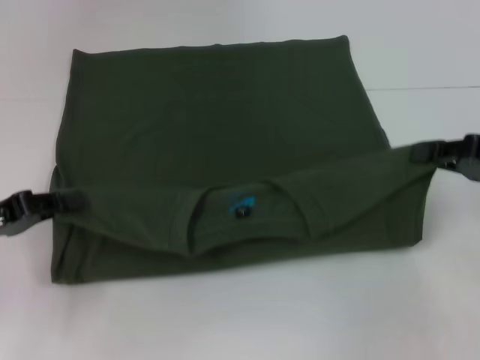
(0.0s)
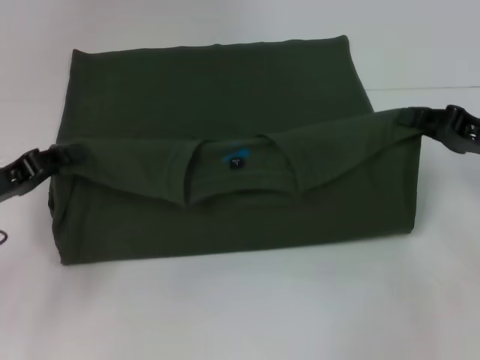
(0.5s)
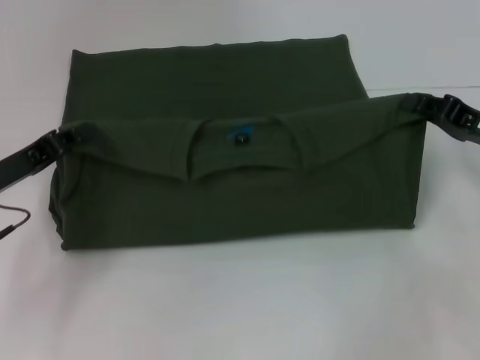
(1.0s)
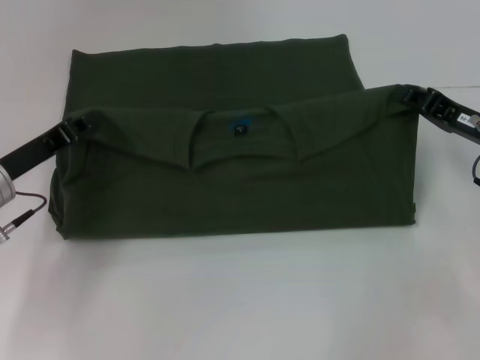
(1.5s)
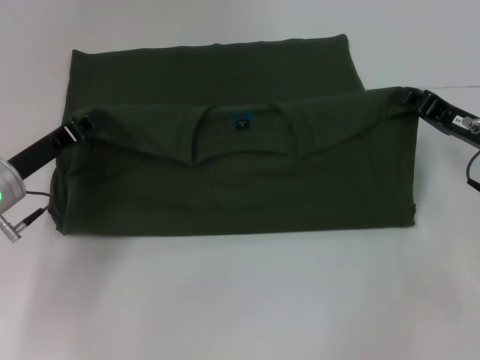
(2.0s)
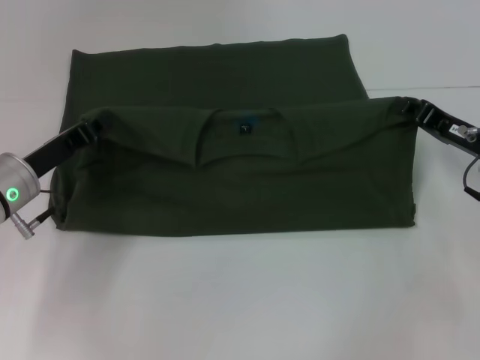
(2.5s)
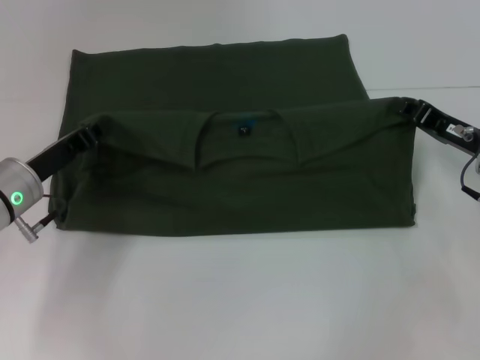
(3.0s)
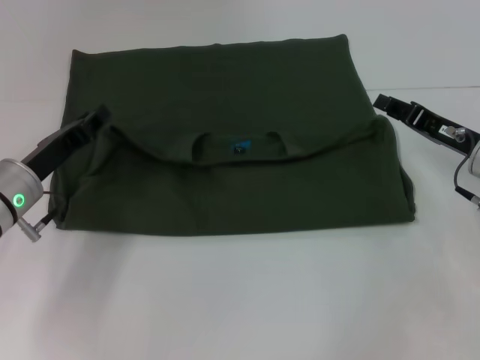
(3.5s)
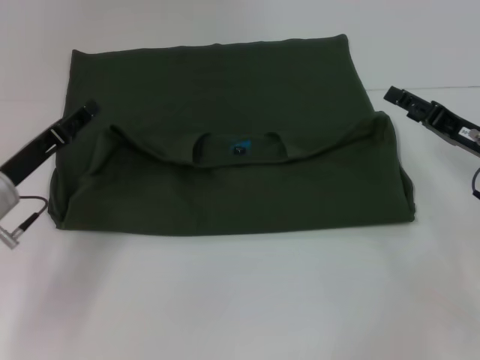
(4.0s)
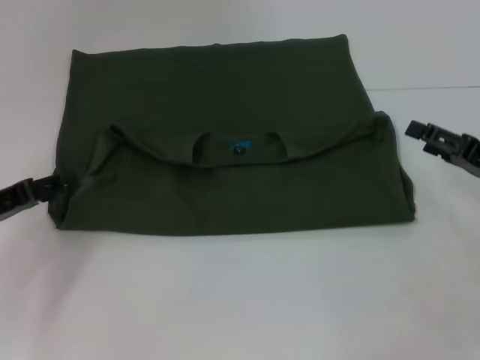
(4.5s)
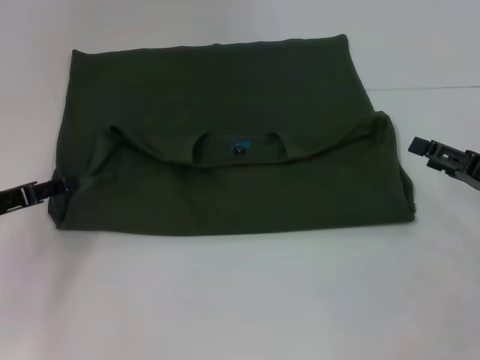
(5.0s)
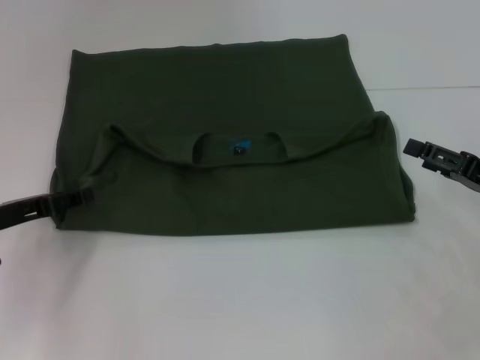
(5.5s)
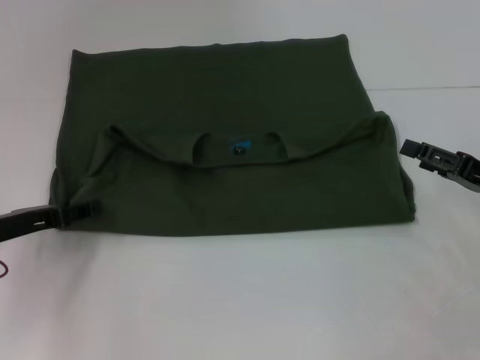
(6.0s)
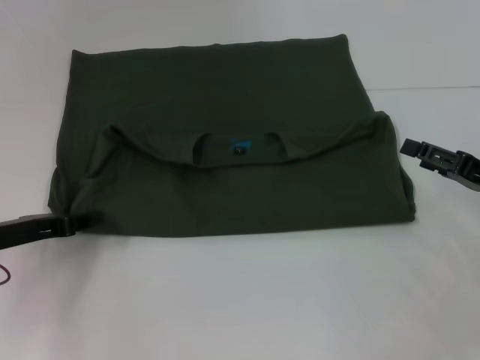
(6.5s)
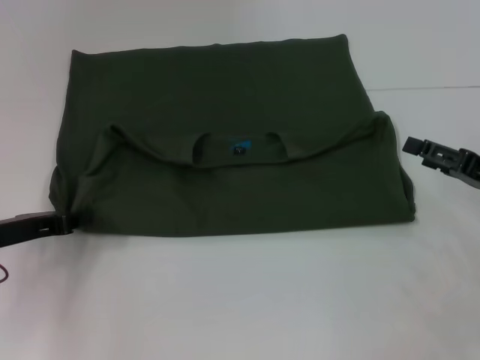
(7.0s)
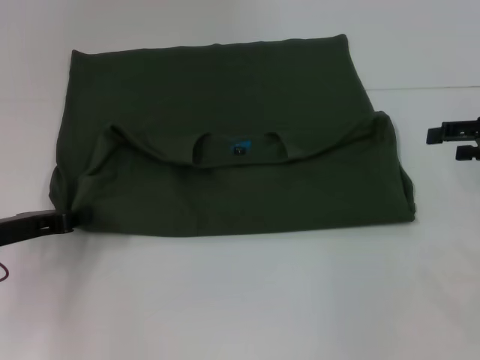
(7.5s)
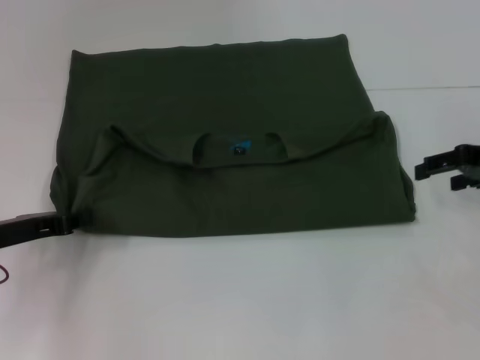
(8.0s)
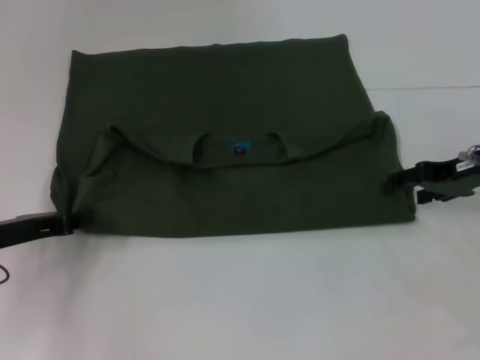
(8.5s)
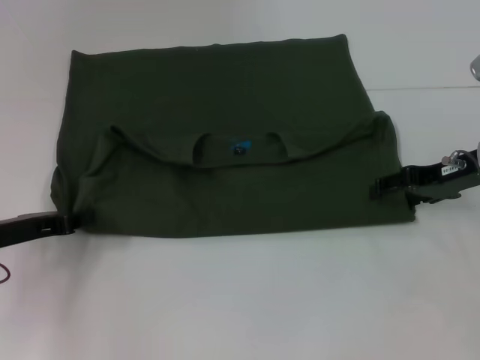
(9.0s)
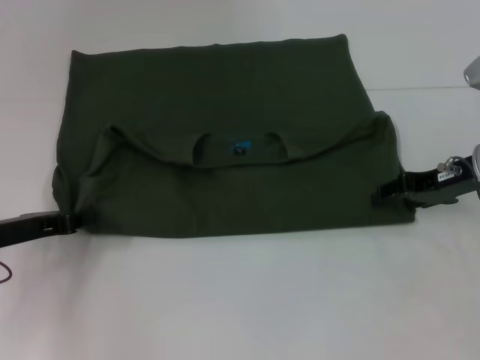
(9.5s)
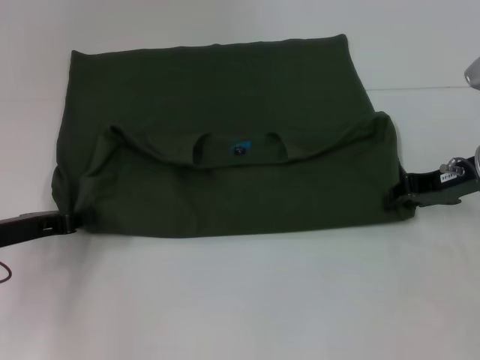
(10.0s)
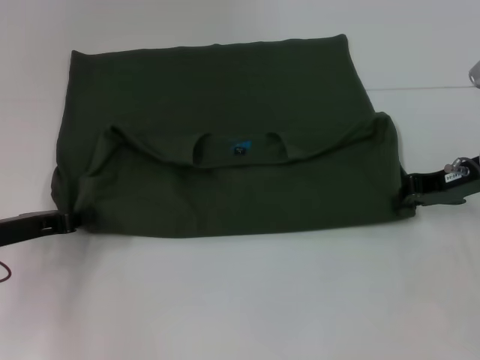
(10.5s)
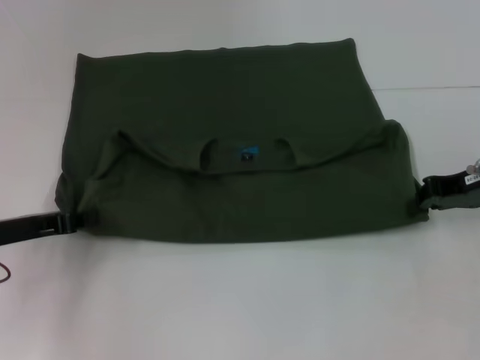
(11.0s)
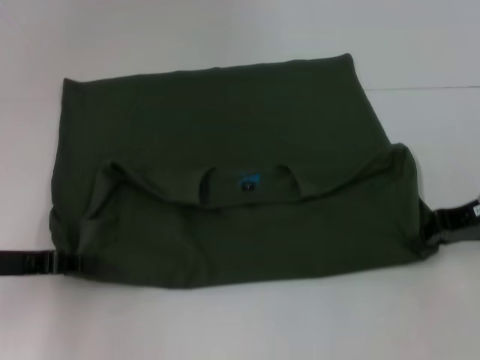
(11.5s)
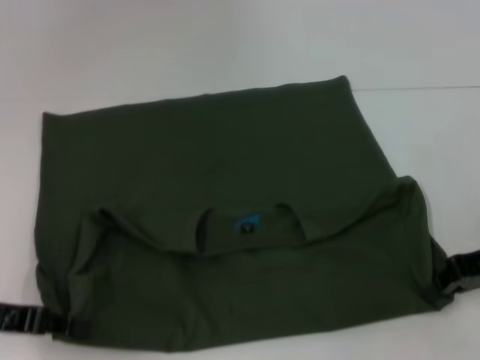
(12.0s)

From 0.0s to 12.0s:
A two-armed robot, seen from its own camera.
Step, from 0.0s to 4.5s: Fold the clothes with your left hand.
Step, from 0.0s to 4.5s: Fold the clothes with your right hand.
From 0.0s to 2.0s: The right gripper moves roughly 10 cm, while the left gripper is displaced to the right and forward by some 10 cm.
From 2.0s to 4.0s: The right gripper opens its fingers. The left gripper opens.
From 4.0s to 6.0s: The right gripper shifts by approximately 5 cm.
From 6.0s to 8.0s: The right gripper goes some 10 cm upward and forward. The left gripper closes.
From 8.0s to 10.0s: The right gripper moves to the left, about 5 cm, and closes.
From 10.0s to 12.0s: The grippers both shift backward by some 5 cm. The right gripper closes.

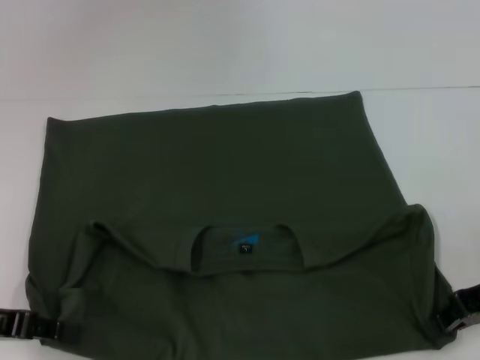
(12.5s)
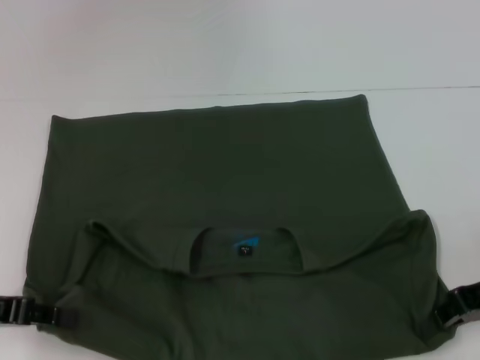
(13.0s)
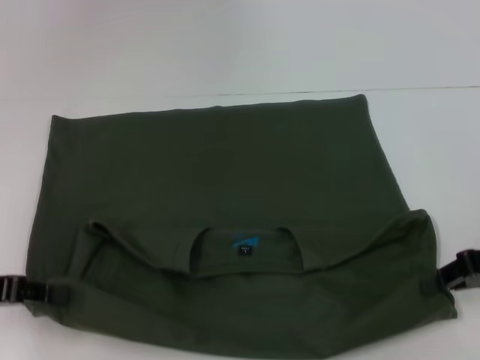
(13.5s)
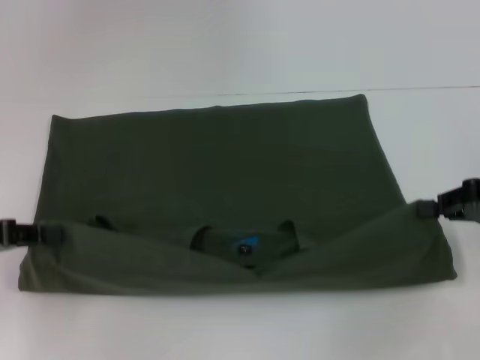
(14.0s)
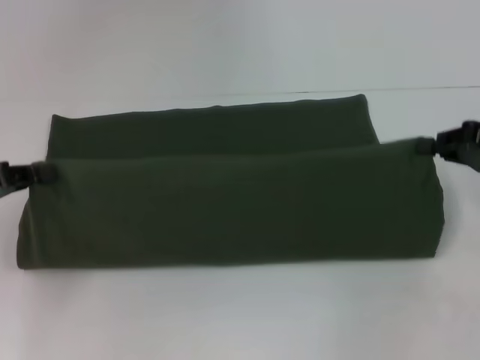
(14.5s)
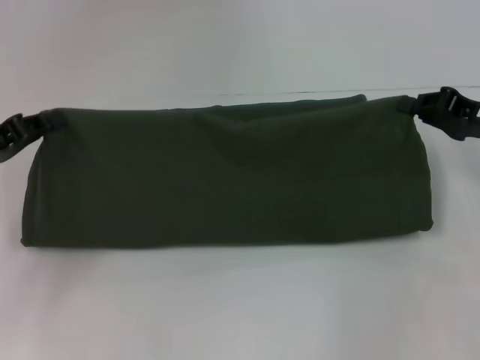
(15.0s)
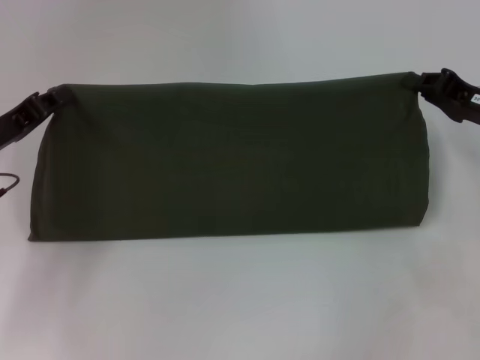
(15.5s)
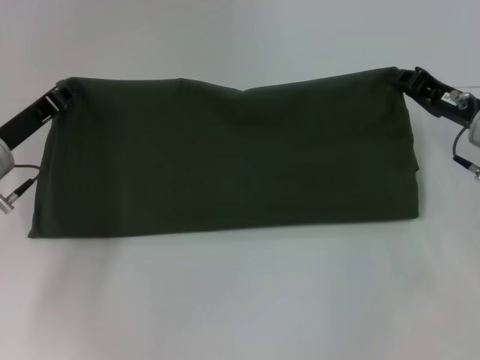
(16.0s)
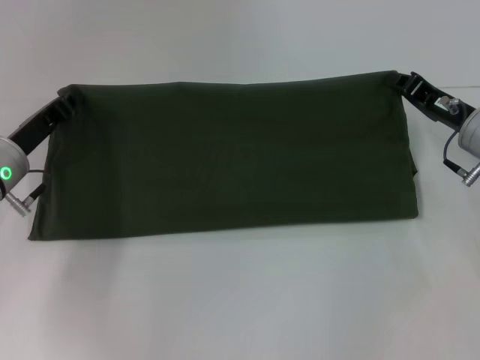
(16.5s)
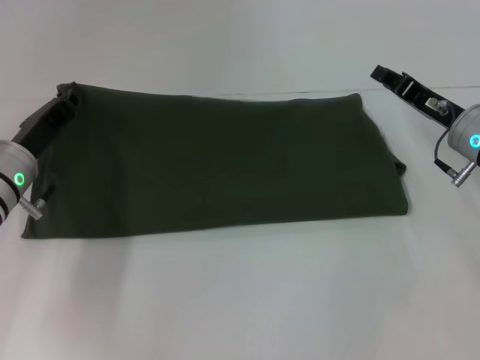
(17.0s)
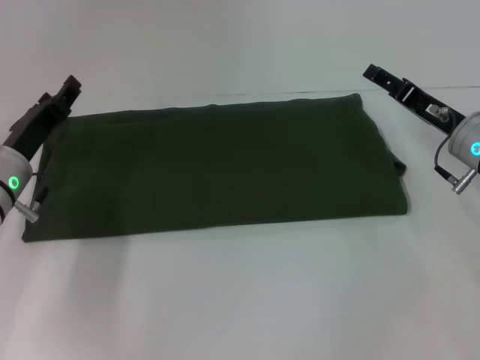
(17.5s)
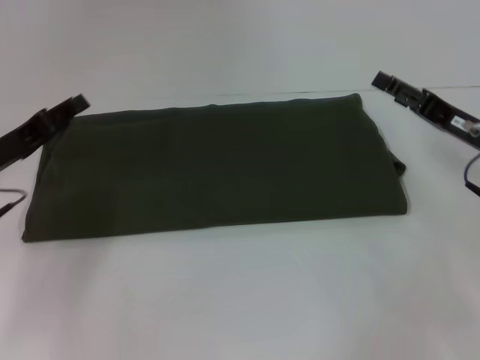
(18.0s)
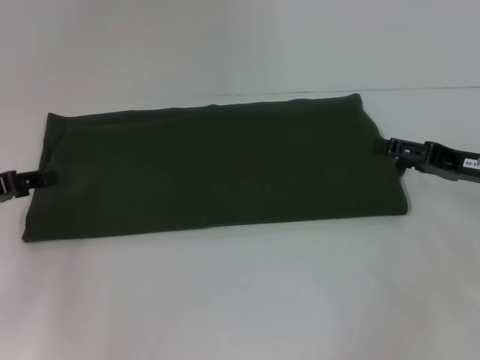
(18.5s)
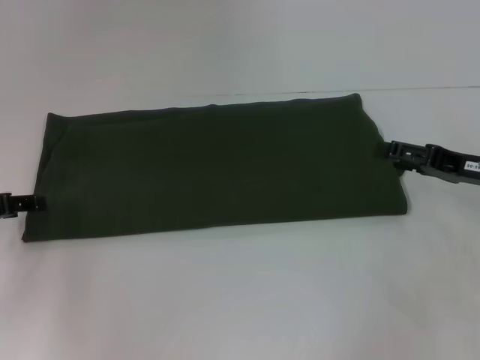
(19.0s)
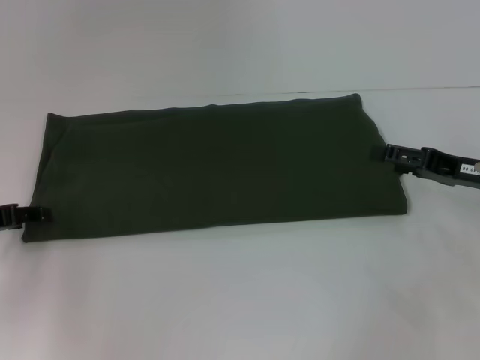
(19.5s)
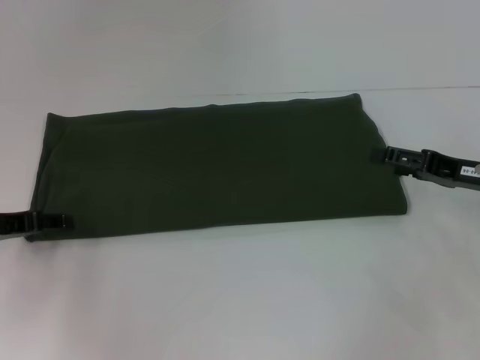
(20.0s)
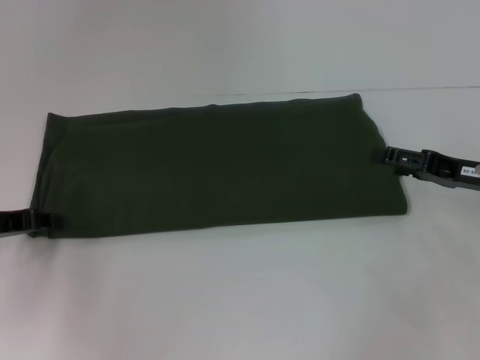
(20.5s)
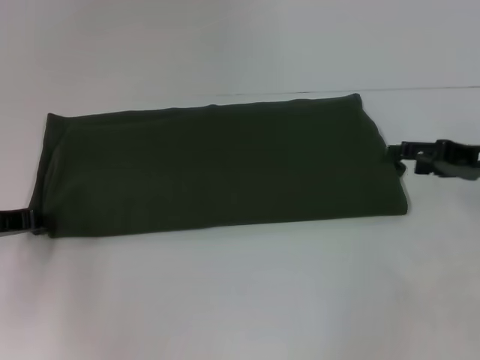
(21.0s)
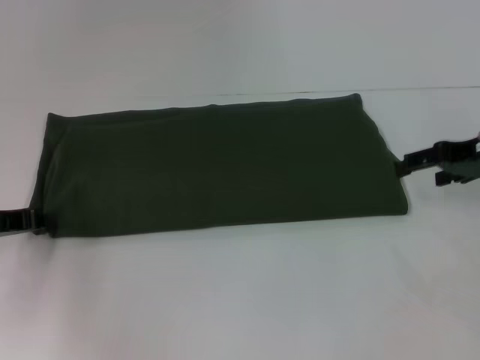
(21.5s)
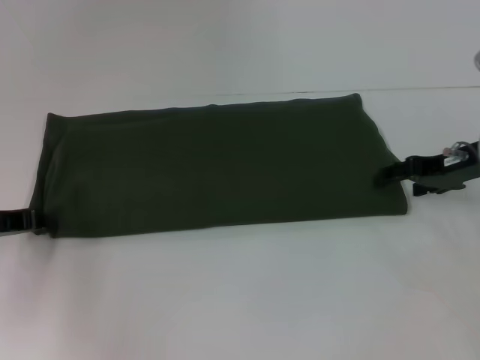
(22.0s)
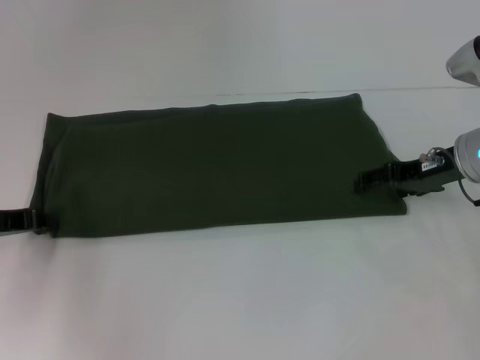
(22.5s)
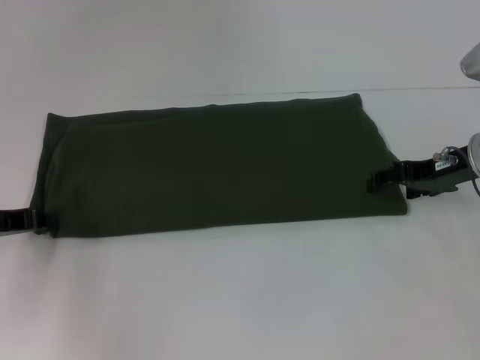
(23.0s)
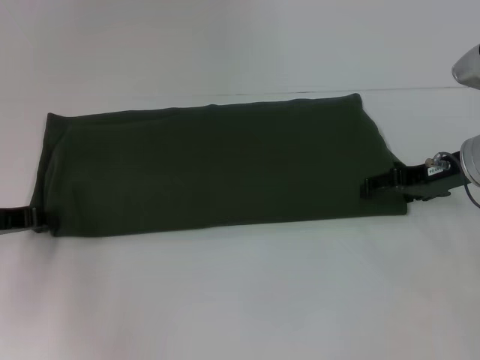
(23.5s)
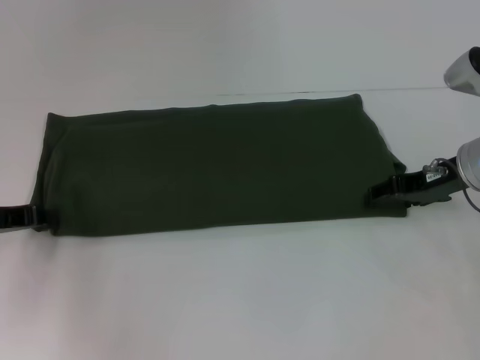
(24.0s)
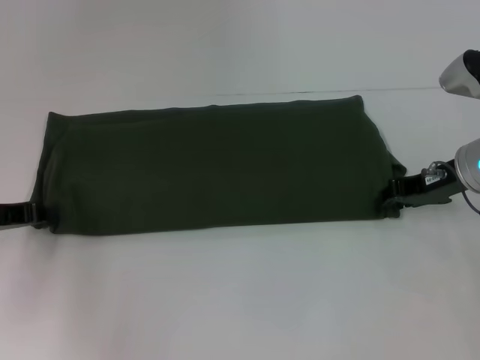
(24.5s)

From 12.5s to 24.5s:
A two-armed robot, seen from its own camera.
Step, from 12.5s to 17.5s: Fold the clothes with your left hand.
Step, from 12.5s to 17.5s: Fold the clothes with your right hand.
From 12.5s to 14.5s: The left gripper moves forward, approximately 5 cm; the right gripper changes place by about 5 cm.
From 14.5s to 16.5s: The right gripper shifts roughly 10 cm to the left and downward. The left gripper moves to the right, forward and downward, roughly 10 cm.
From 16.5s to 18.5s: The right gripper shifts by approximately 5 cm, and opens its fingers; the left gripper moves to the left, approximately 10 cm, and opens up.
From 18.5s to 20.5s: The grippers make only small movements.
From 20.5s to 22.5s: The right gripper goes some 5 cm forward and to the left.
From 22.5s to 24.5s: The right gripper closes its fingers.

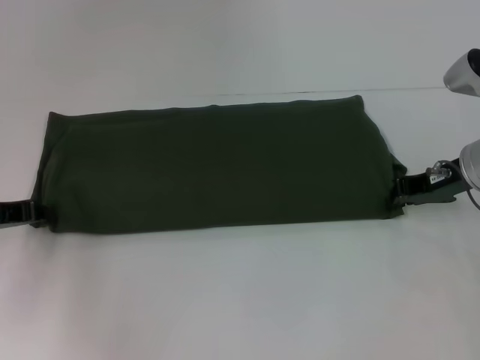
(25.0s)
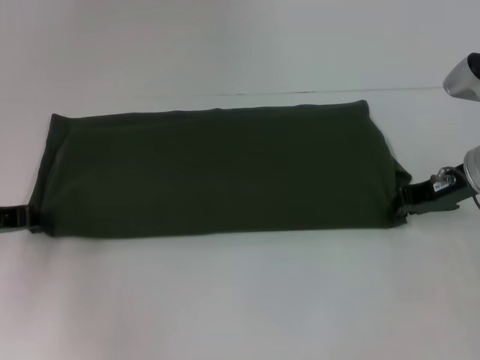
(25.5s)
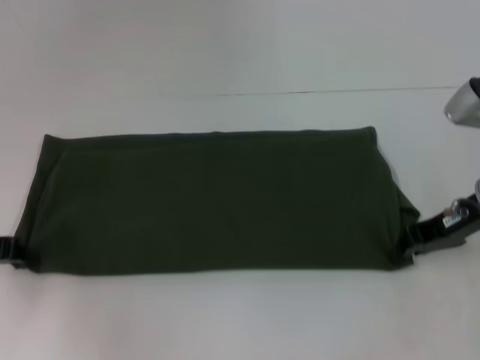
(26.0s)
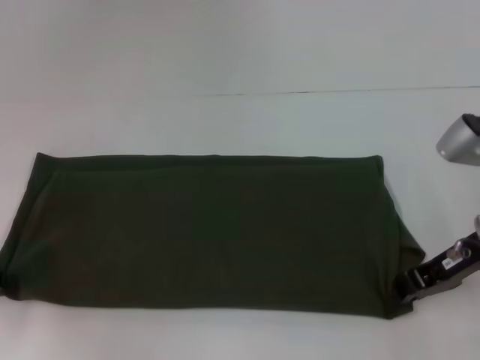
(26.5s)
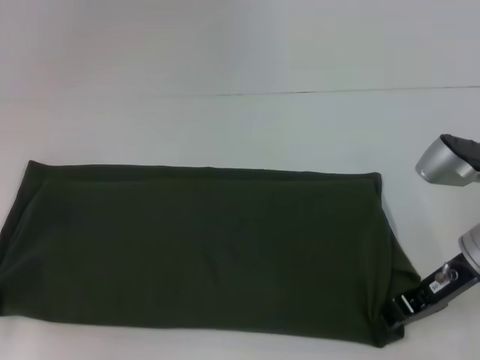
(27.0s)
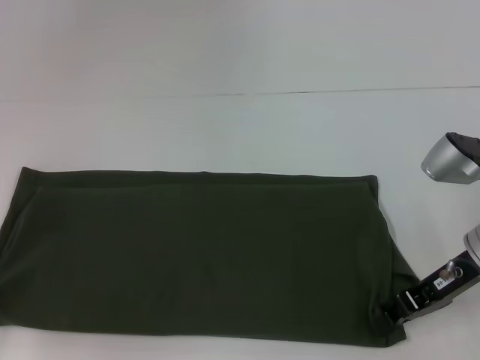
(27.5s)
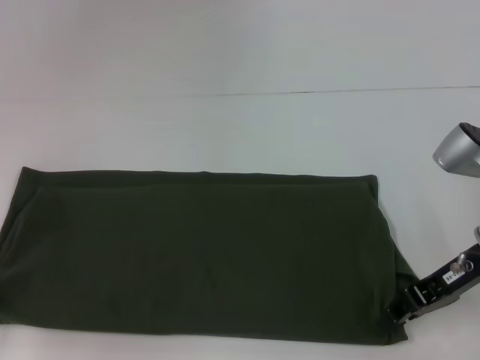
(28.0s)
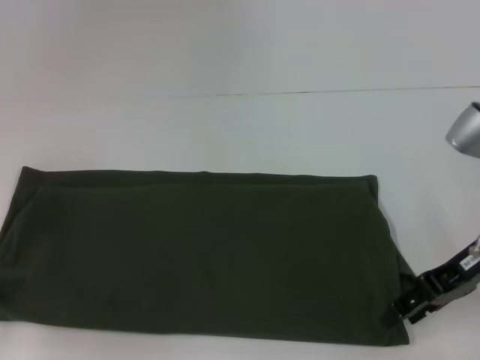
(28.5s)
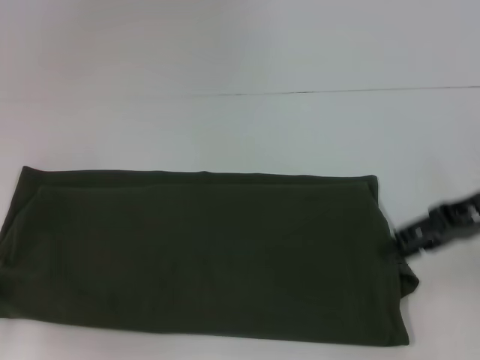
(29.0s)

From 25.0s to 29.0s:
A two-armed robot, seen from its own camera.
From 25.0s to 27.0s: Both grippers travel together backward, roughly 5 cm.
From 27.0s to 29.0s: The right gripper travels upward by roughly 10 cm, and opens its fingers.
